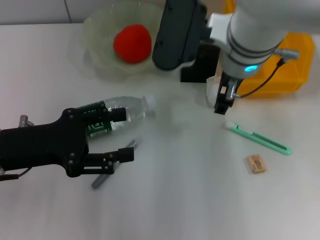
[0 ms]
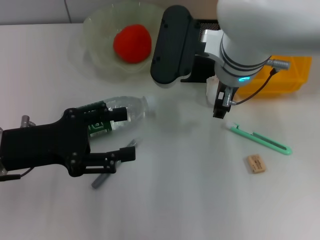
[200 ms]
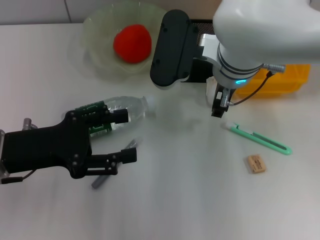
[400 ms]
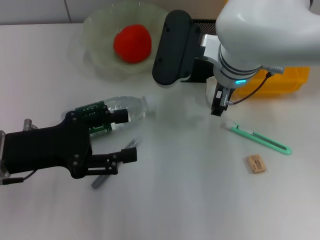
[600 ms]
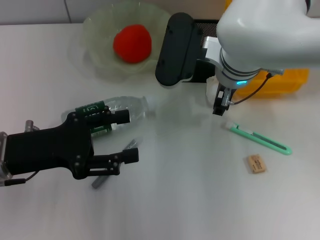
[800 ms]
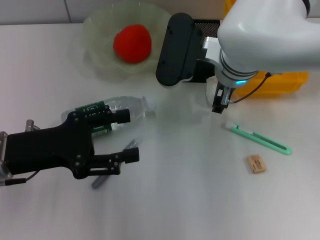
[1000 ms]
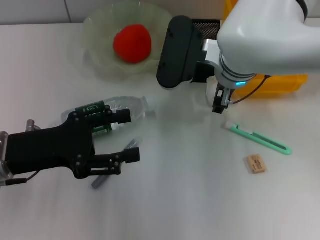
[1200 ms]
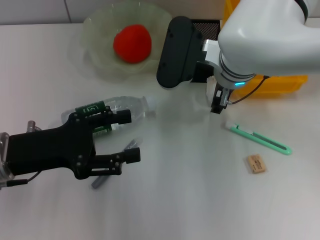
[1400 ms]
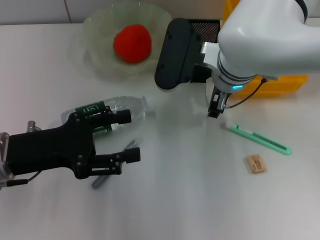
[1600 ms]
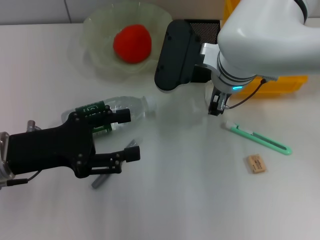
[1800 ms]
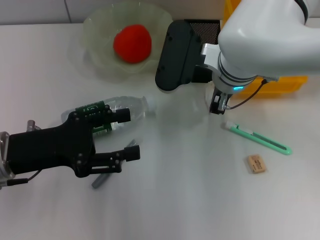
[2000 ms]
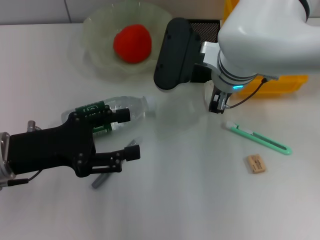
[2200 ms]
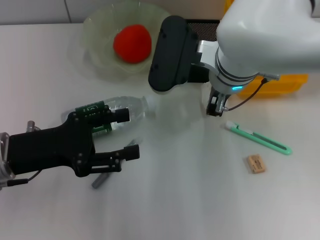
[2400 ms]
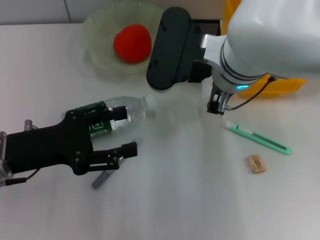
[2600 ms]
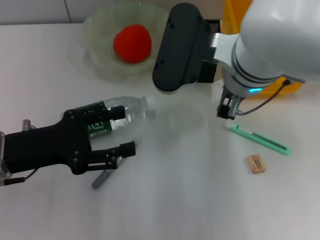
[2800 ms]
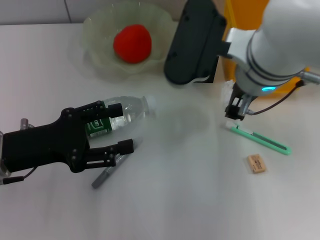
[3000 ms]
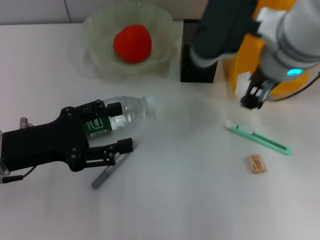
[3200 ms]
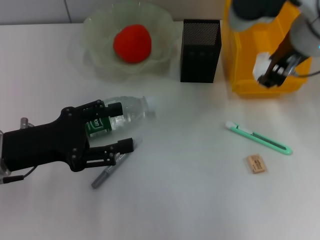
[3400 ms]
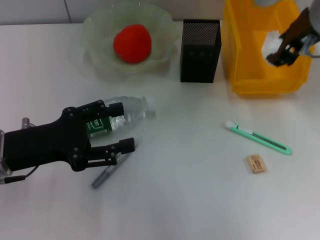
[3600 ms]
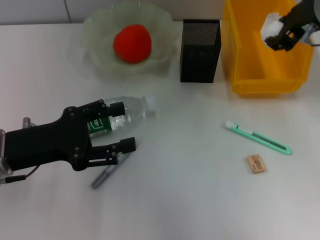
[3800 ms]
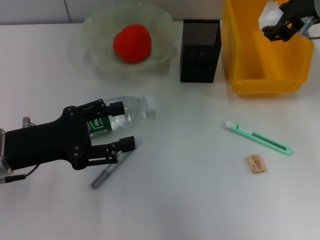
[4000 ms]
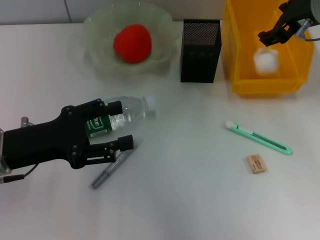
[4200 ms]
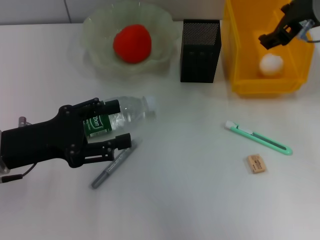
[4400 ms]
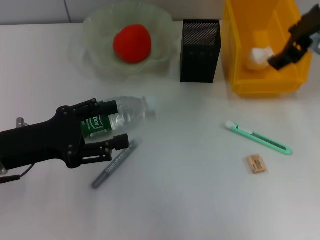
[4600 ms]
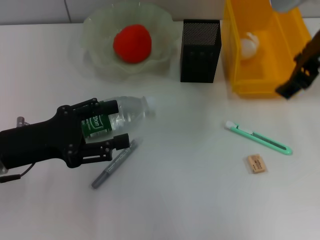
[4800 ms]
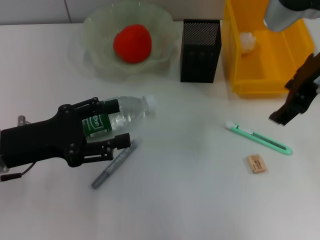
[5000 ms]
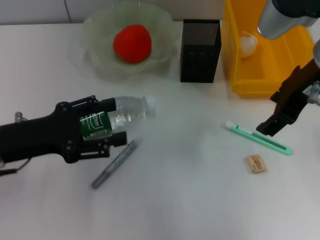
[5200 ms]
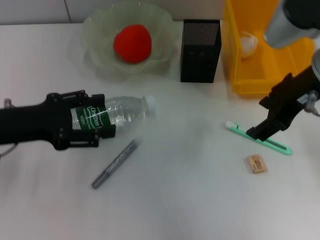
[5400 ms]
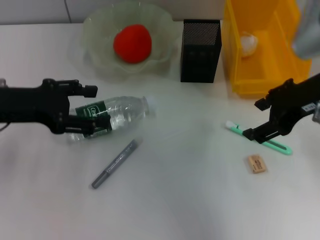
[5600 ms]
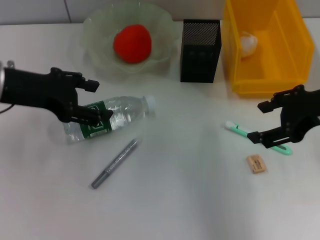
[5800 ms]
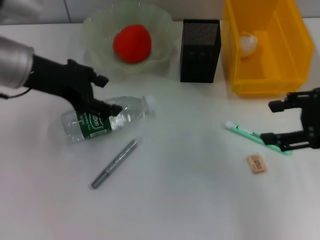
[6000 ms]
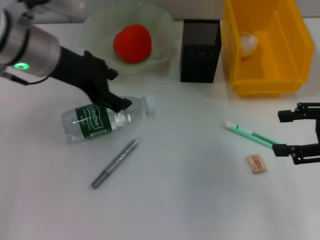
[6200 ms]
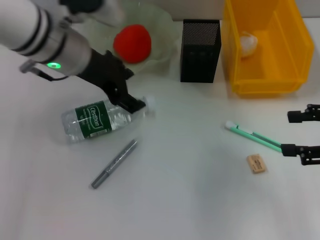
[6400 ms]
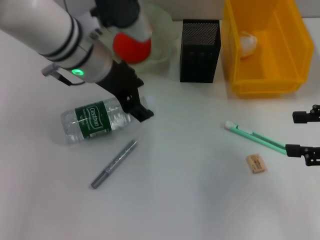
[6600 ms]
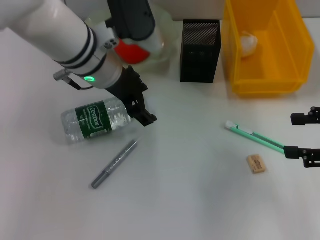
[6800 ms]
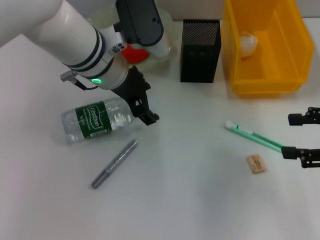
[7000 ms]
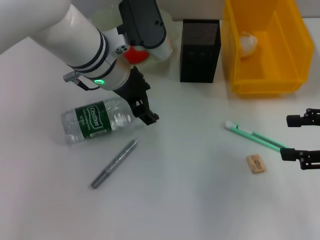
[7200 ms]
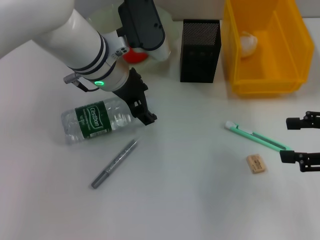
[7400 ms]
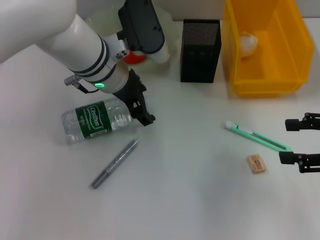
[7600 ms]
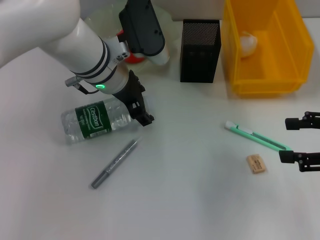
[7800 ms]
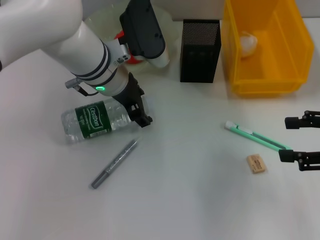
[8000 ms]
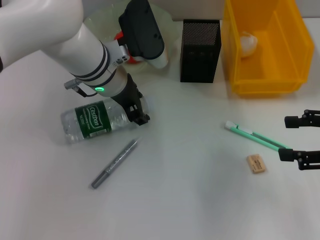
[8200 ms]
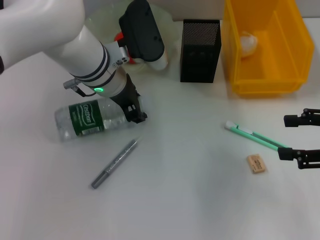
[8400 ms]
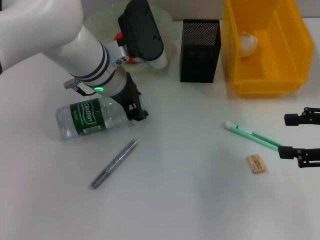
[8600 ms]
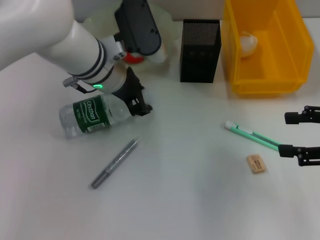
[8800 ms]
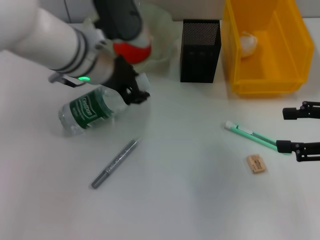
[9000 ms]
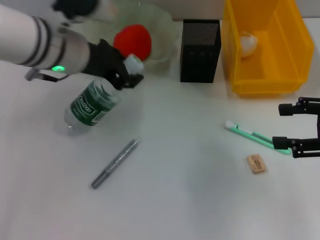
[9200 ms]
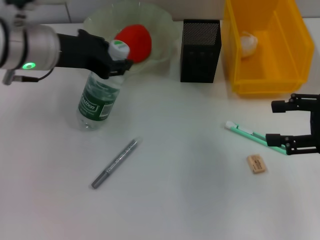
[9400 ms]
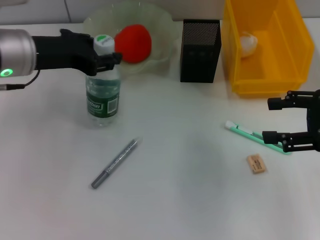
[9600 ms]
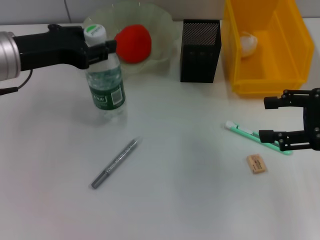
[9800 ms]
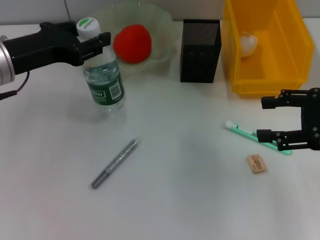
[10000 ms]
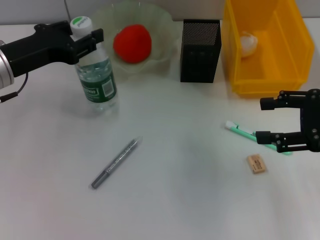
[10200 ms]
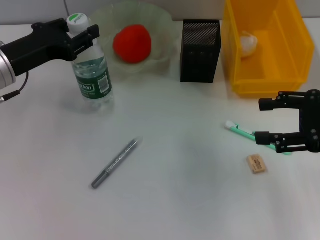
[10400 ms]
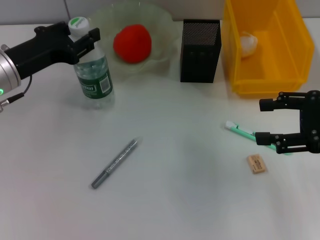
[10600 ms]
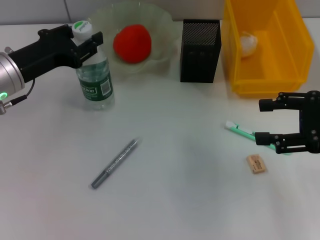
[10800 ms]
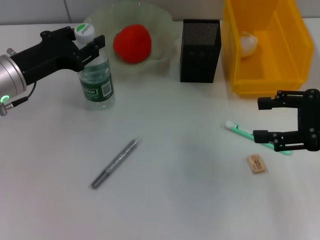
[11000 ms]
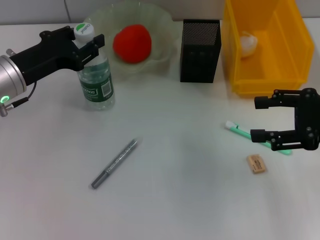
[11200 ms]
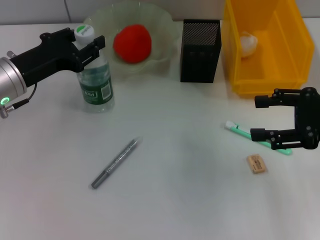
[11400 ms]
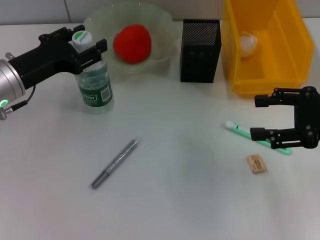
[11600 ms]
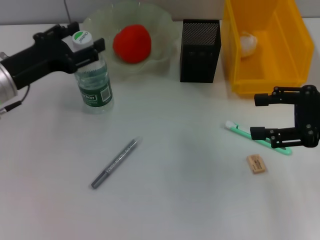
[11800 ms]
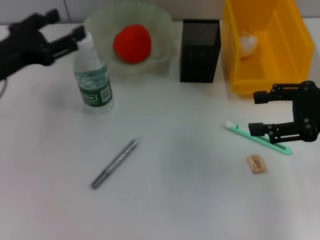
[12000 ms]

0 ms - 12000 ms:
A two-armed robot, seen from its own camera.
Step, 0 ms - 2400 ms: Grab the paper ball with the right hand.
Step, 2600 ms - 4600 ms: Place the paper ball into the trash can with the right hand.
Step, 4800 ms - 8400 ms: Grab the water bottle with the left hand.
0 ms - 1600 ms: The right gripper shifts approximately 5 cm downward.
1600 ms - 3000 ms: The right gripper goes approximately 10 cm upward and backward.
3000 ms - 4400 ms: The right gripper shifts approximately 15 cm to the right and forward, and opens up.
4400 ms - 6000 ms: The right gripper is displaced backward, to the right and downward by about 15 cm; the left gripper moves upward and forward, some 15 cm.
6000 ms - 7600 ms: The left gripper travels to the right and downward by roughly 15 cm. The right gripper ends up approximately 5 cm from where it was.
7600 ms - 9000 ms: The left gripper closes.
9000 ms - 10400 ms: The left gripper heads to the left, covering approximately 15 cm.
10400 ms - 12000 ms: The left gripper opens up.

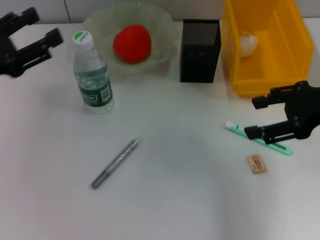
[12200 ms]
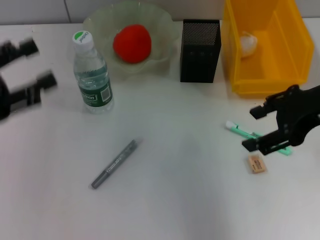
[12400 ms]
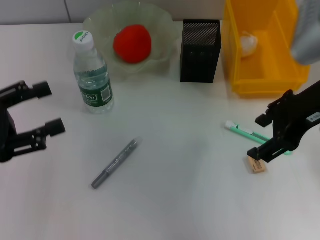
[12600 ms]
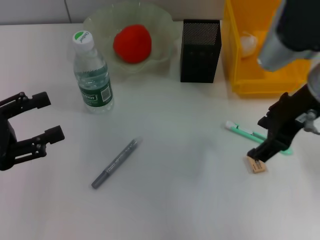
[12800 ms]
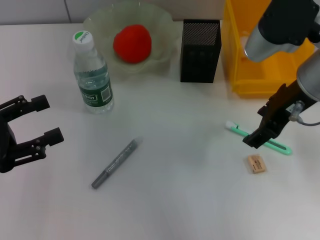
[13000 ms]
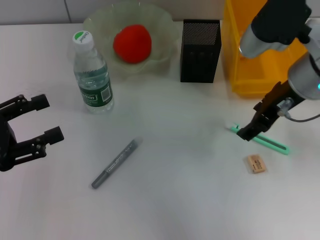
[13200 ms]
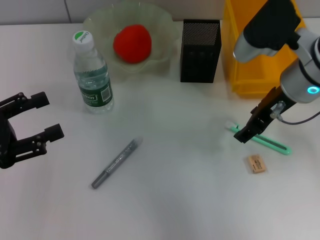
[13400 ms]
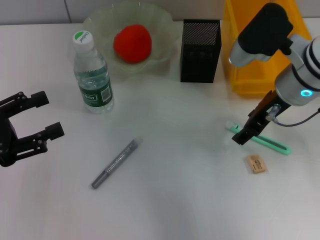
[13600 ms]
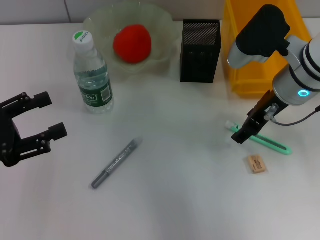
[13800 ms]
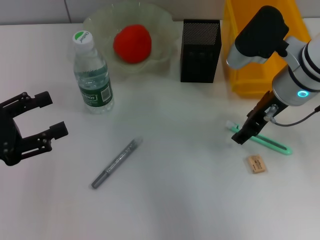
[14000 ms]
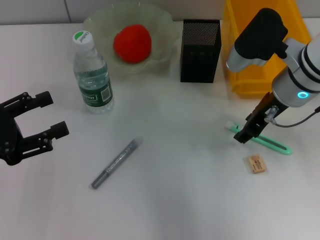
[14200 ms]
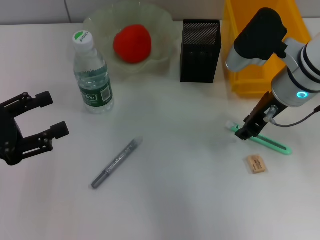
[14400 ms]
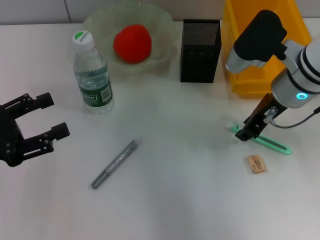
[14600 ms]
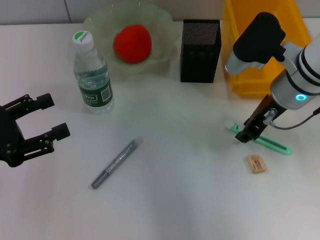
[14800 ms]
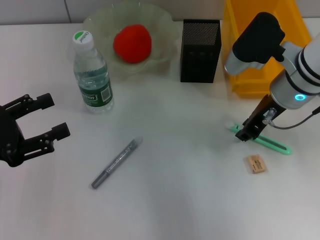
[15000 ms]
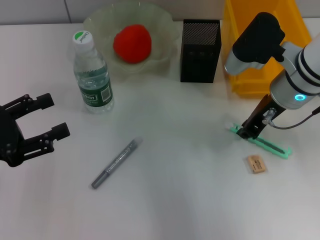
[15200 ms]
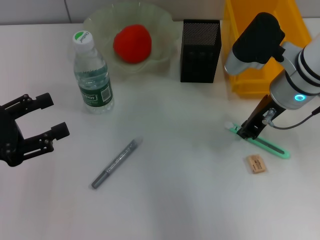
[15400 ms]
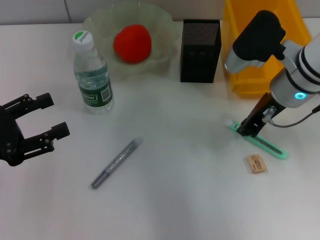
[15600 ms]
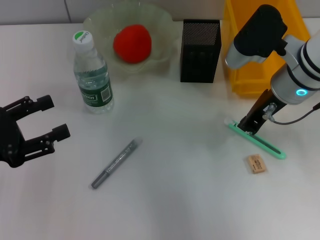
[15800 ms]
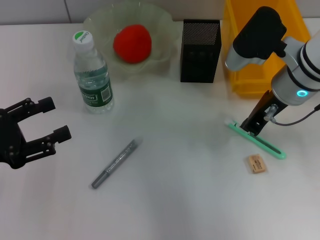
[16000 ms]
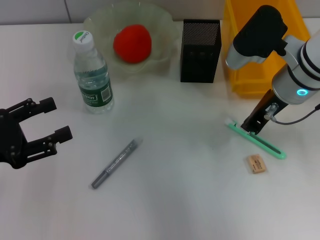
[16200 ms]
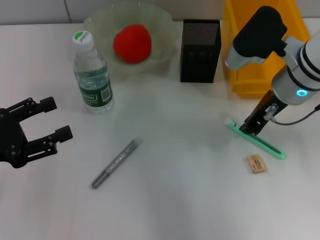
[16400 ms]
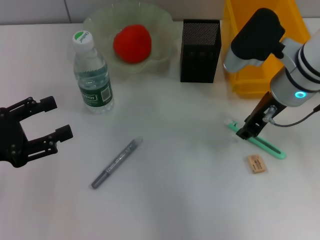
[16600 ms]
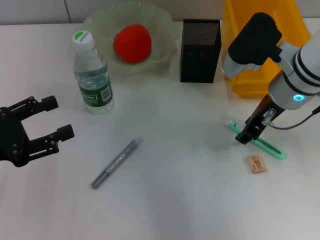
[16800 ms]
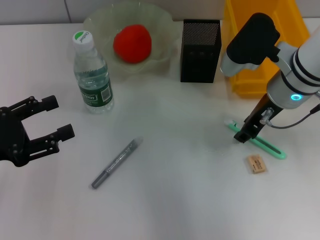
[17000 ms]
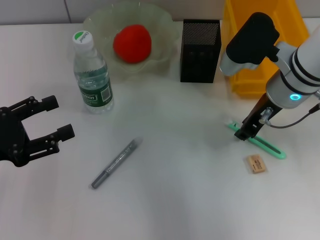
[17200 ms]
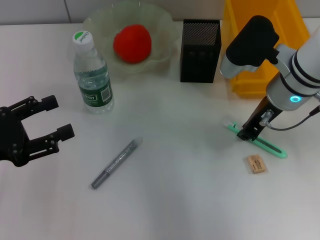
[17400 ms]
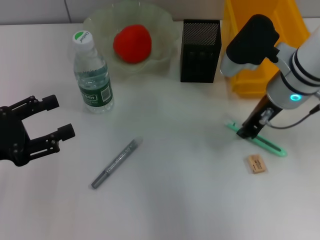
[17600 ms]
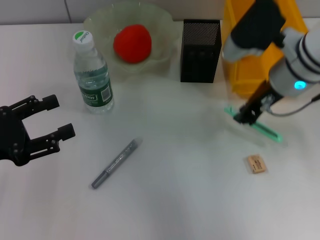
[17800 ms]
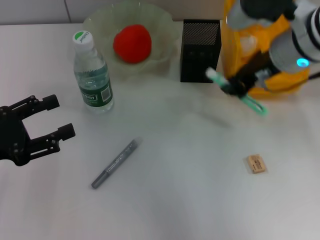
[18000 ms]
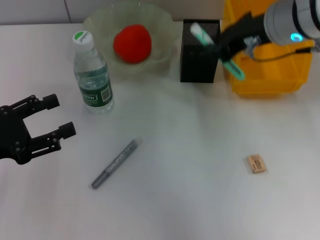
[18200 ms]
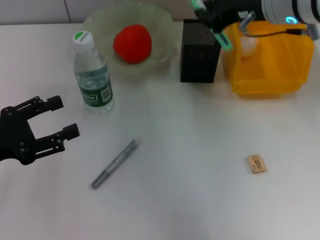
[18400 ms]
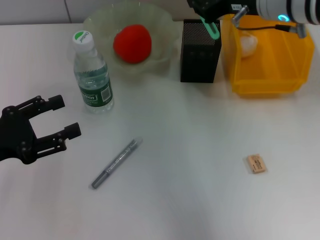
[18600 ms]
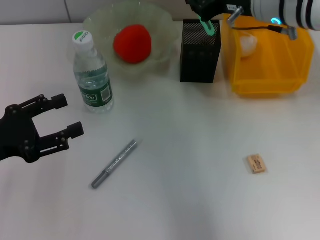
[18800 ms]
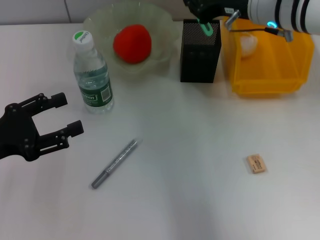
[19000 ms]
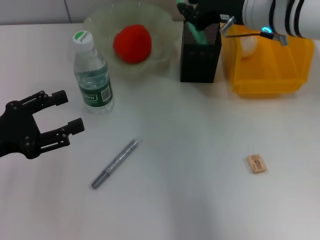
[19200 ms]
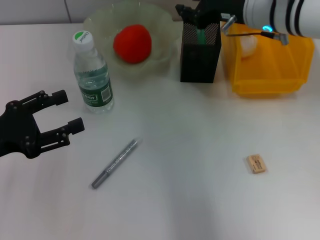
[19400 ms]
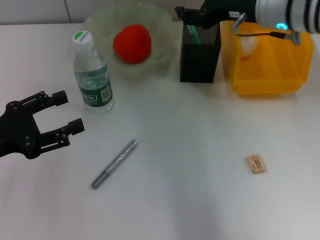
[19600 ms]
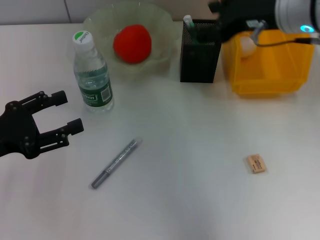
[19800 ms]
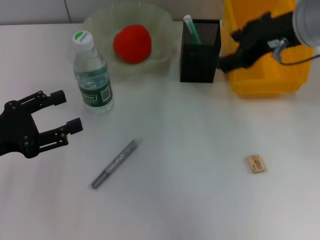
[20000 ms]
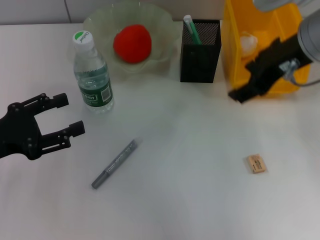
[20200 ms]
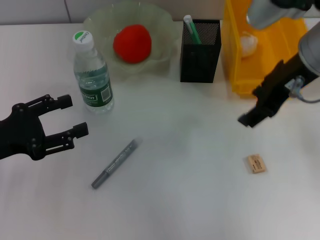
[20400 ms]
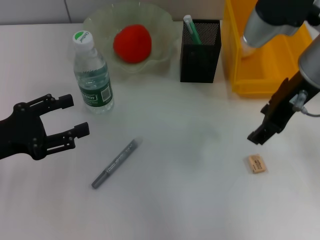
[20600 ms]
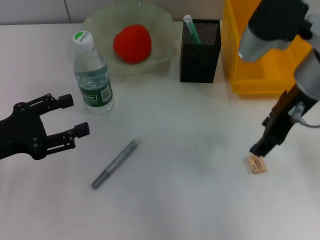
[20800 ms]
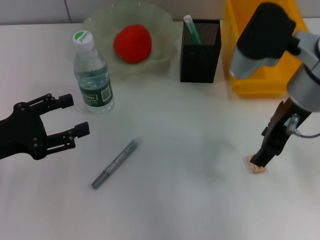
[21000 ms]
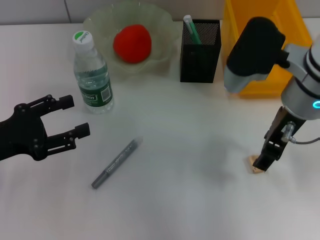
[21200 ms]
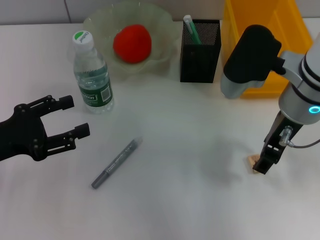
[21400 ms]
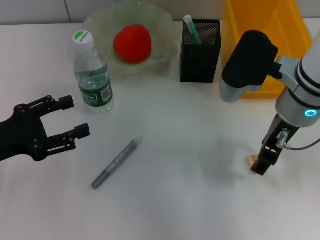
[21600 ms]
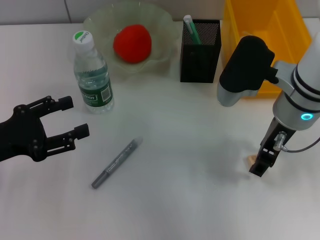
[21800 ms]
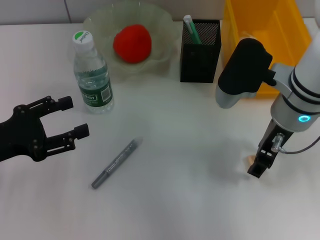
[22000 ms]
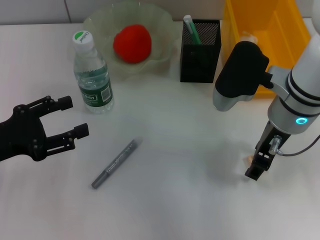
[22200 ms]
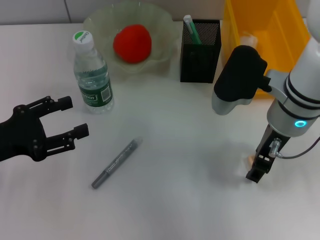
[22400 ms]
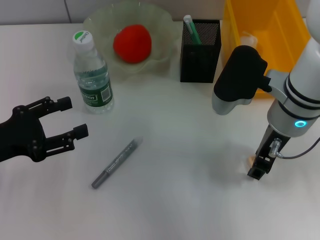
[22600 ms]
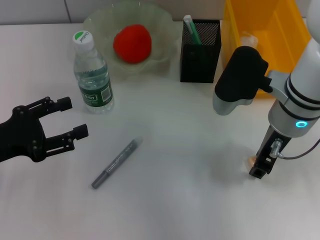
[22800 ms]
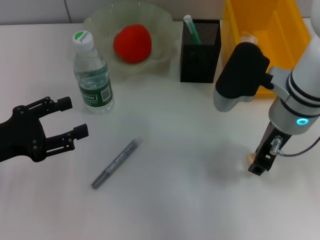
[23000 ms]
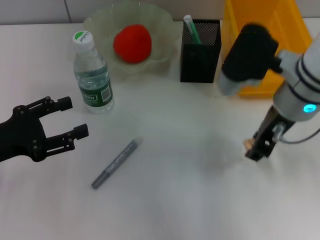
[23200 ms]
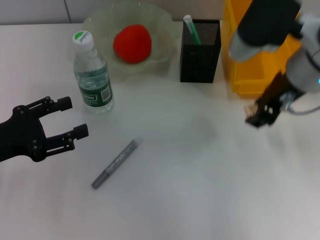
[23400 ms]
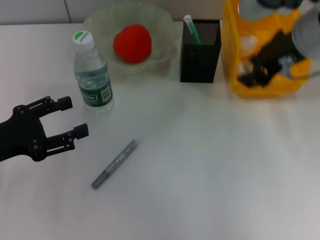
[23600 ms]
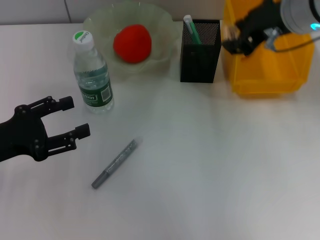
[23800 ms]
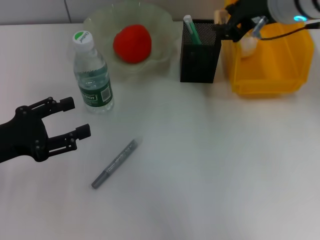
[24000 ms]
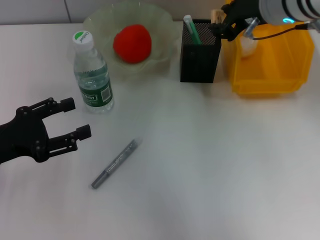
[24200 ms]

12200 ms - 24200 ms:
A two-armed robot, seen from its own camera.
Step, 12400 ms - 15400 ms: Grab the blue utility knife with the right hand.
Step, 15600 ms - 20000 ms: Place the blue utility knife into the pen holder with the right hand.
Step, 20200 ms - 23200 ms: Grab the eraser with the right hand.
12200 ms - 13800 ms: The right gripper is displaced to the left and forward by roughly 10 cm. The left gripper is displaced backward by approximately 5 cm.
13800 ms - 15200 ms: The right gripper closes up.
15200 ms - 16600 ms: The two grippers keep their place.
16600 ms - 18200 ms: The right gripper shifts some 10 cm upward, and opens and closes again.
18200 ms - 19800 ms: The right gripper opens up.
19800 ms - 21200 ms: The right gripper is displaced backward by roughly 5 cm.
21200 ms - 22600 ms: The grippers make only small movements.
22600 ms - 24200 ms: The right gripper heads upward and forward, covering roughly 10 cm, and closes up.
